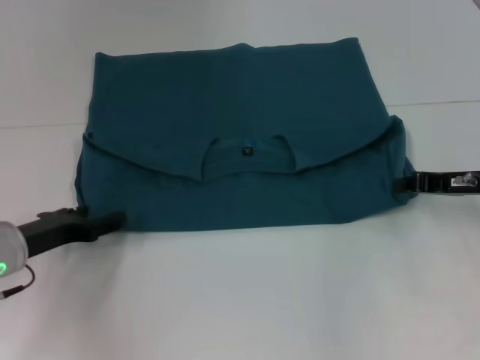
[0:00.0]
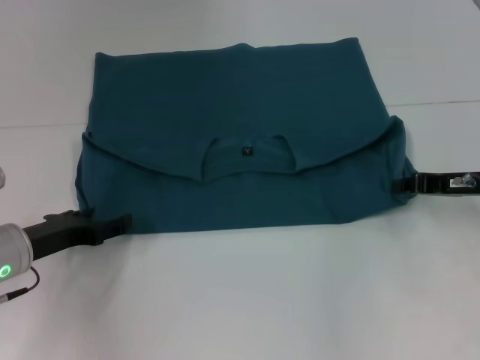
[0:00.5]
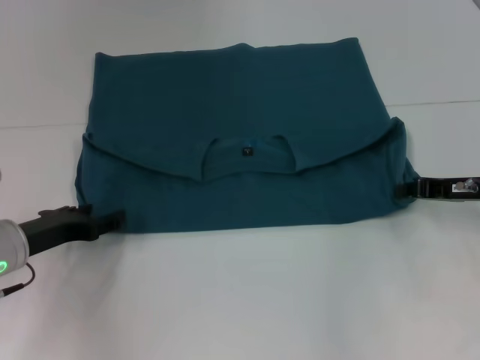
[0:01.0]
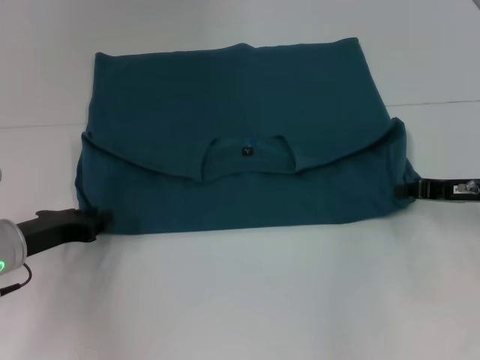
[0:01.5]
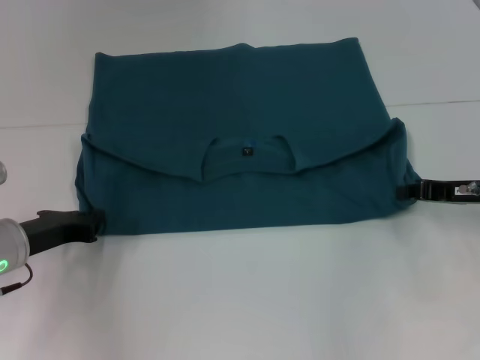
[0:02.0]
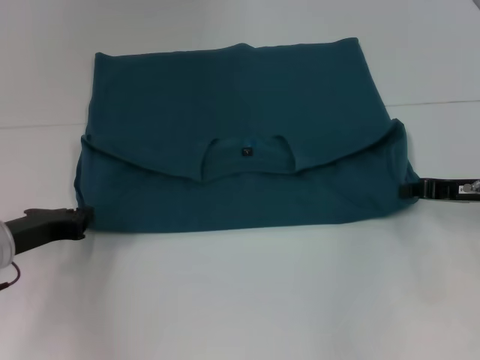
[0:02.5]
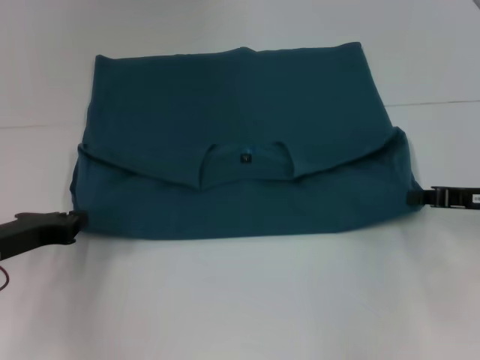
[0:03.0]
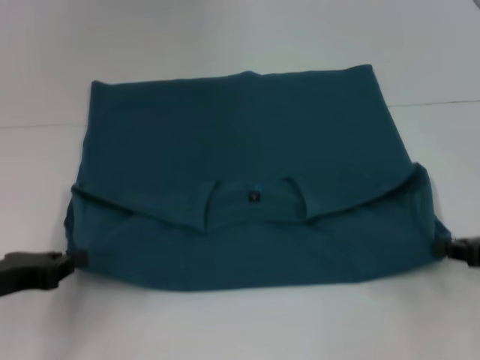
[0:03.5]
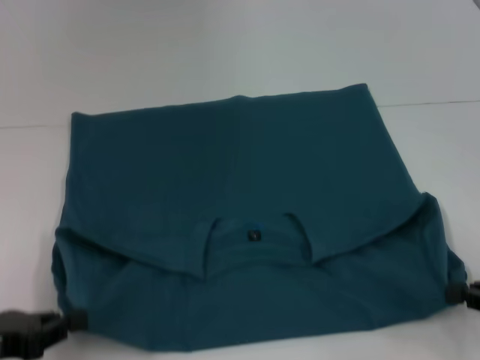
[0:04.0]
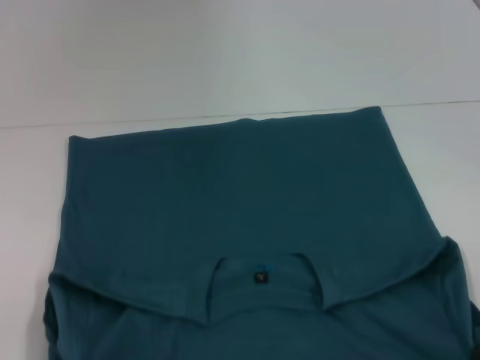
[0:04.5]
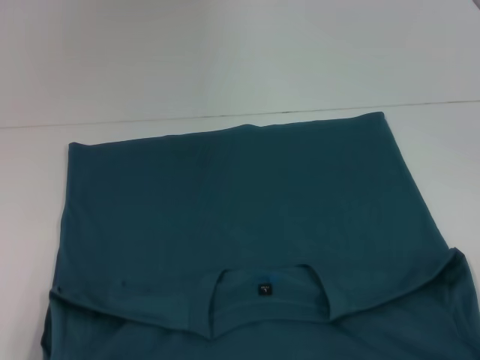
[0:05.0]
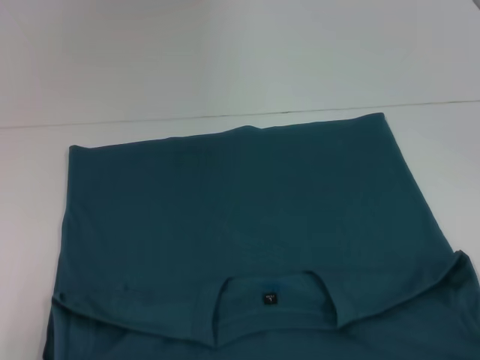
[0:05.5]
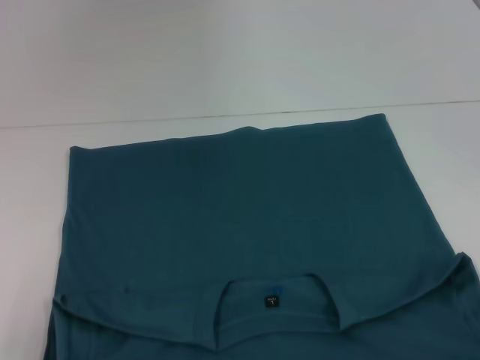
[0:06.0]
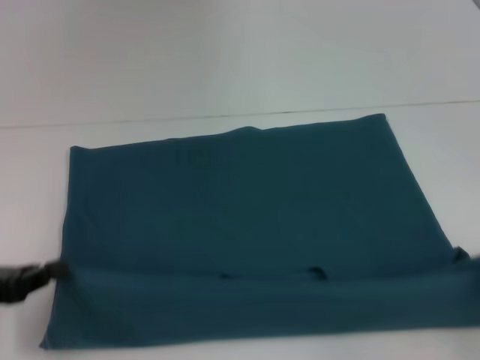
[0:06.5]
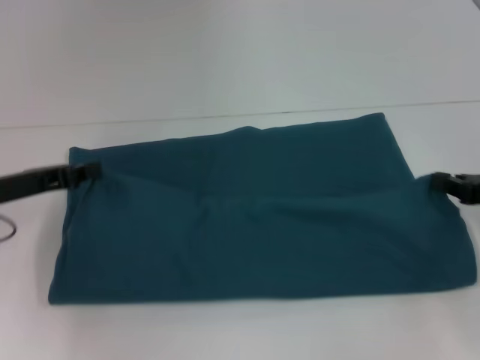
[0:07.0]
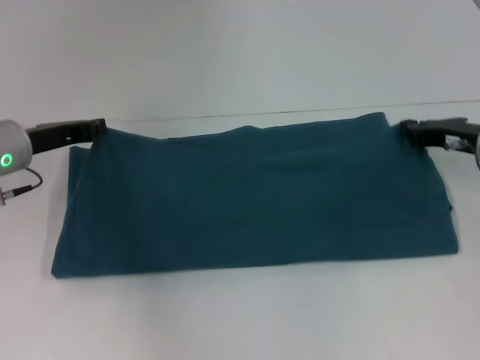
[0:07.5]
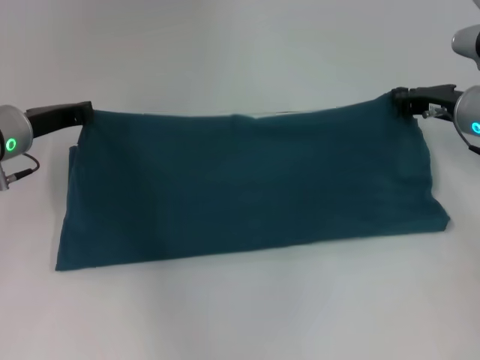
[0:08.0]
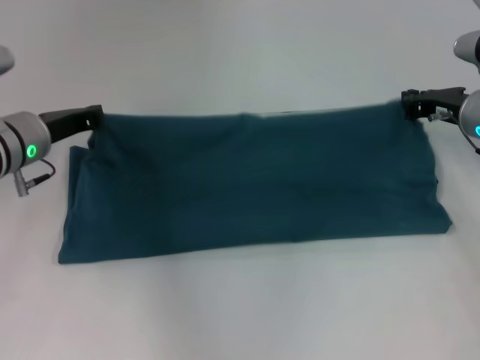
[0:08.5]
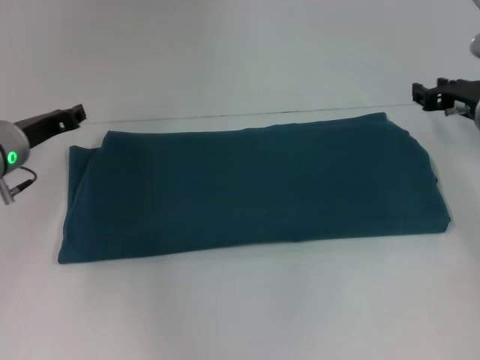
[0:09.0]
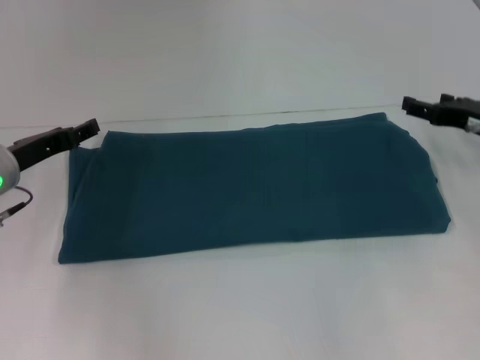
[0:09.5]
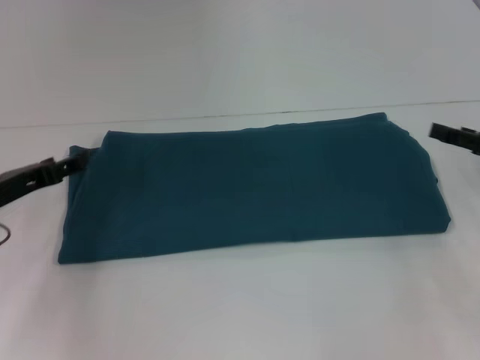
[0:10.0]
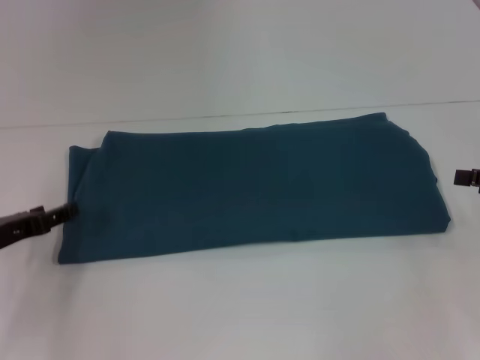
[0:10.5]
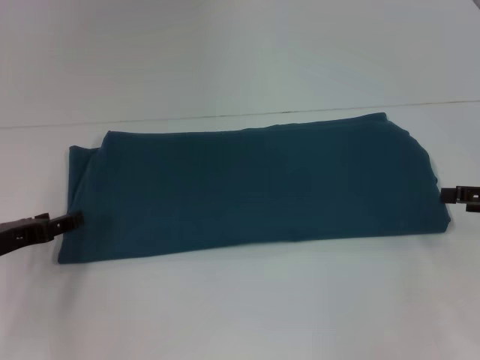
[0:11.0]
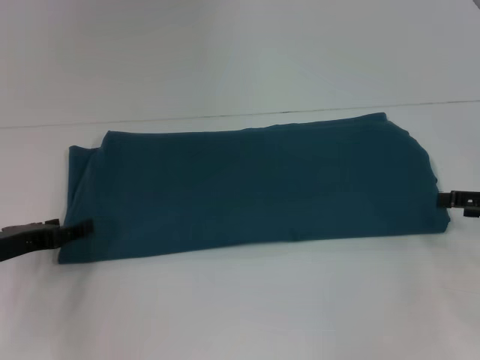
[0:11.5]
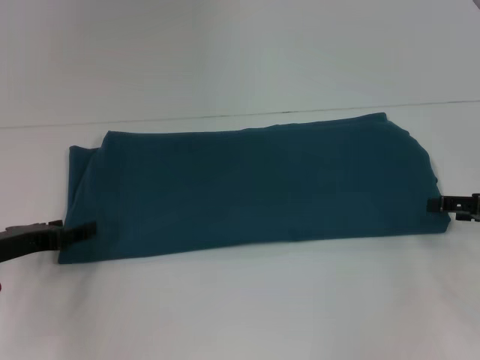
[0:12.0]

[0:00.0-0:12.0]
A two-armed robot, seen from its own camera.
Step, 0.0 to 4.5 s: Pull the clothes with your left hand.
Step, 0.0 to 4.5 s: Pull the clothes with your right hand.
Step, 5.0 to 8.5 s: Fold the clothes to the right.
0.0 to 2.0 s: The left gripper closes up.
2.0 to 4.0 s: The left gripper shifts about 15 cm backward and to the left. Meanwhile the right gripper heads backward and to the right, covering approximately 15 cm.
4.0 to 6.0 s: The right gripper heads backward, covering roughly 10 cm; the left gripper travels backward by some 5 cm.
6.0 to 8.0 s: The left gripper is displaced forward by roughly 25 cm. Meanwhile the right gripper moves forward and to the left, approximately 30 cm.
8.0 to 10.0 s: The left gripper is displaced backward by some 10 cm, and opens; the right gripper moves backward and to the right, approximately 15 cm, and opens its fingers.

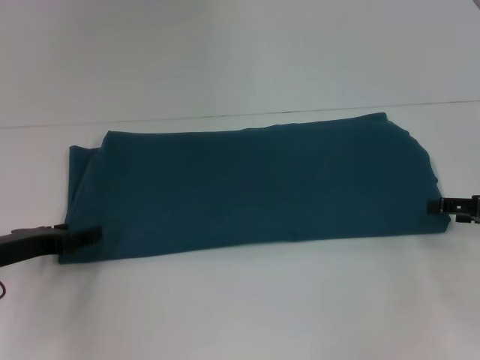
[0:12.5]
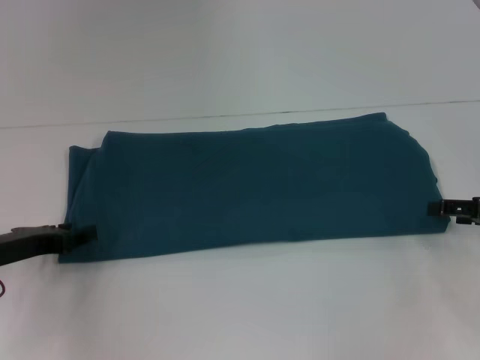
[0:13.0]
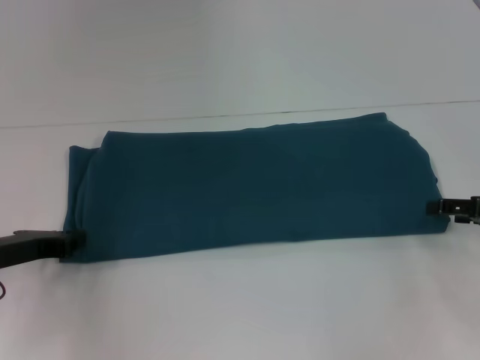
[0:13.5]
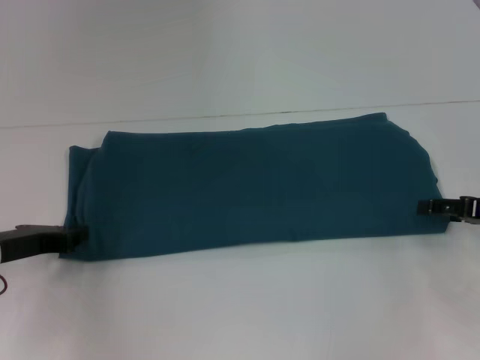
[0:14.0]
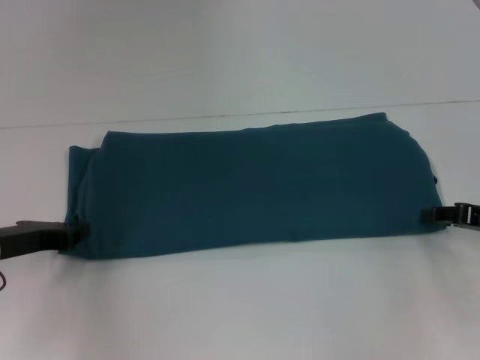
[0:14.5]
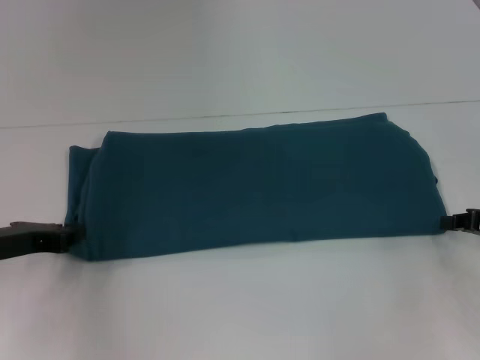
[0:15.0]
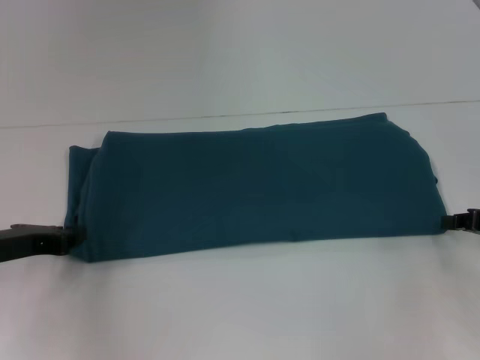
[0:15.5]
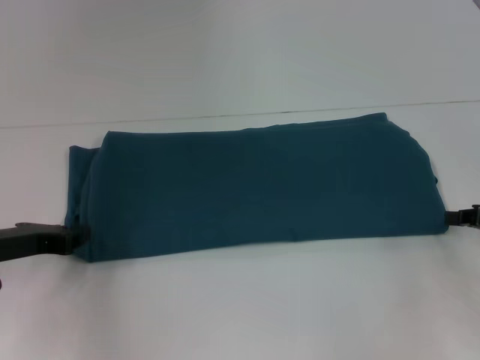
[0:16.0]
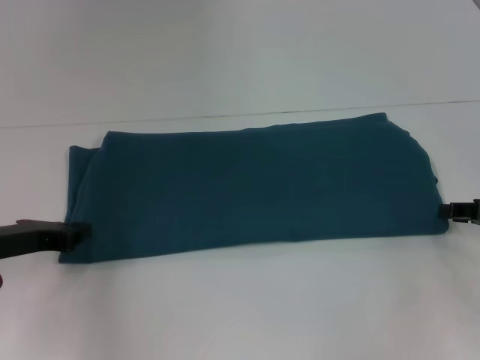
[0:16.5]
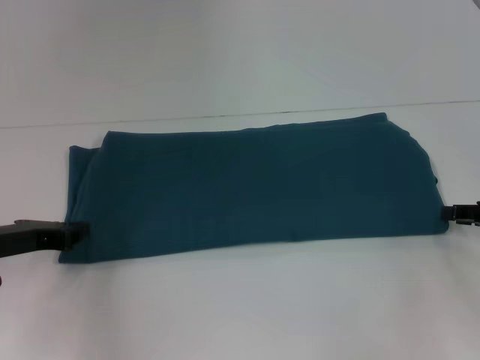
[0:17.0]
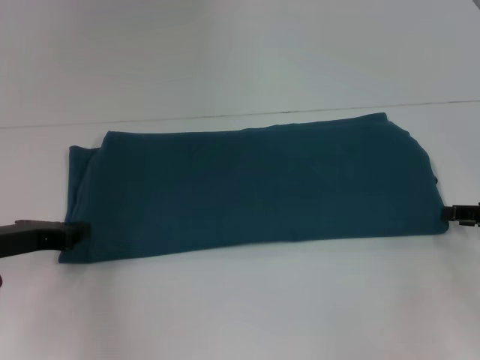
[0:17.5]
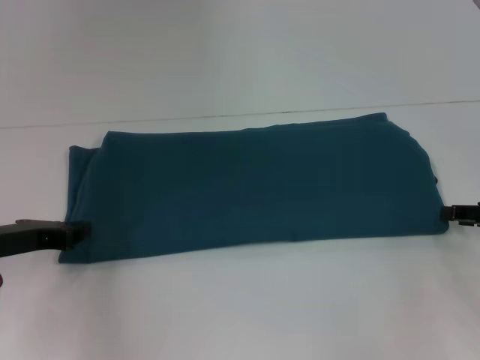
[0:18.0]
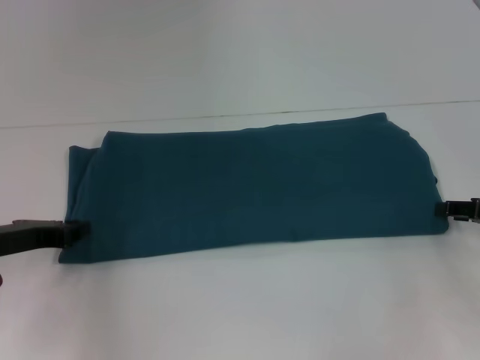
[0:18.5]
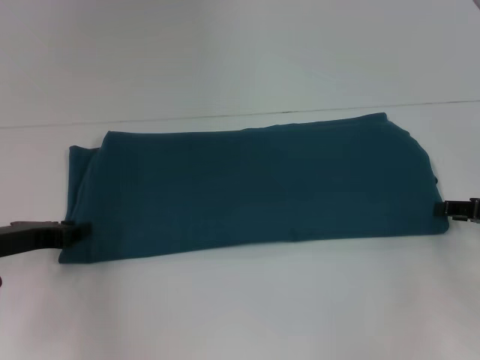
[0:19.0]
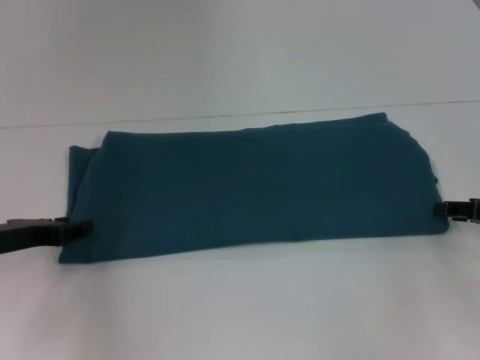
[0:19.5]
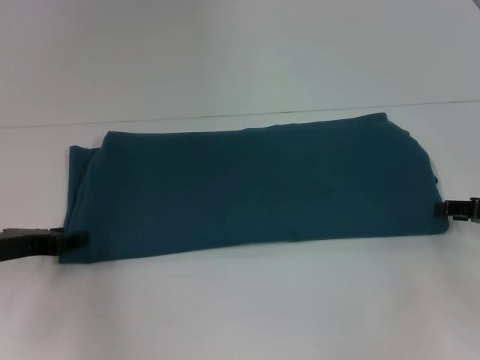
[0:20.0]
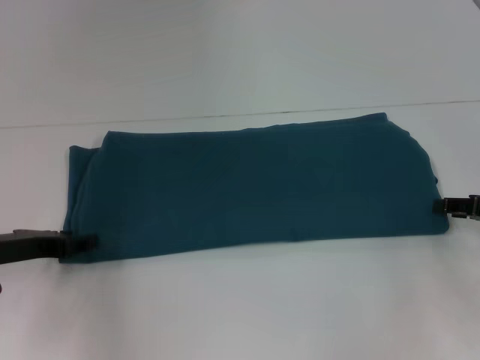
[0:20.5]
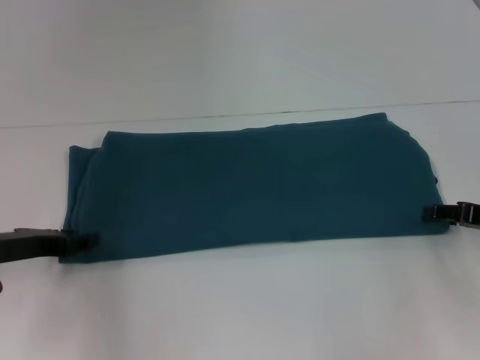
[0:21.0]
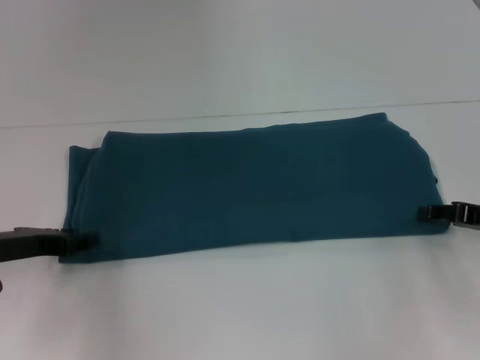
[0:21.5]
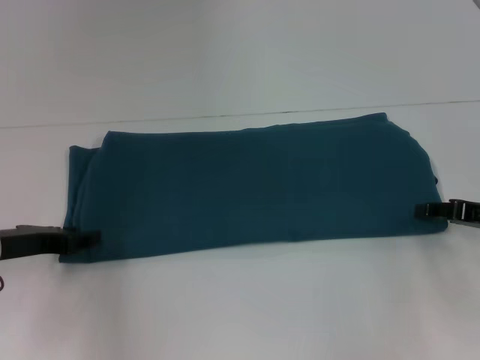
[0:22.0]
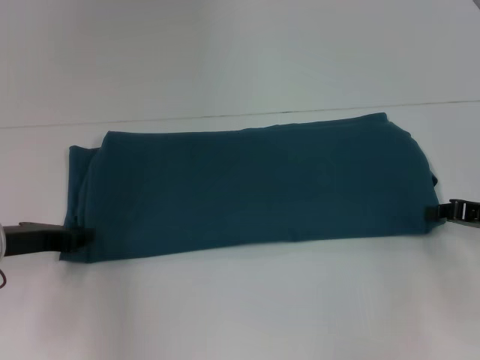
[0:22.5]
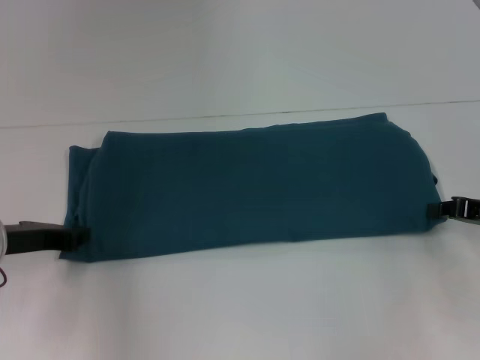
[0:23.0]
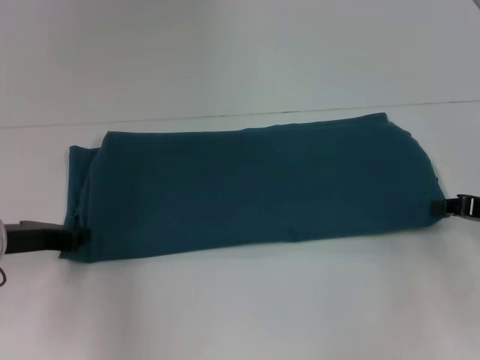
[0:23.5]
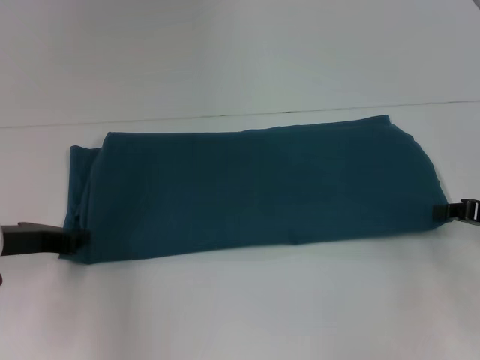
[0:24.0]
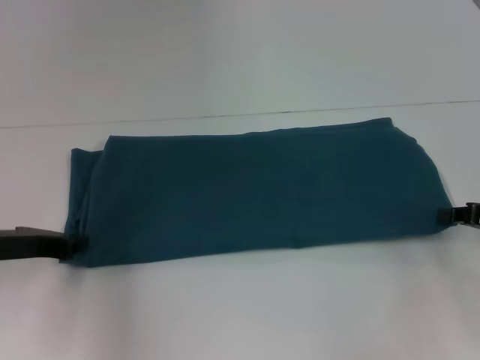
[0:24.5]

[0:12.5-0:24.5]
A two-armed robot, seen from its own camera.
12.5 to 14.5 s: The left gripper closes up.
16.5 to 18.5 s: Neither gripper changes place.
18.5 to 20.5 s: The left gripper opens up.
20.5 to 22.5 s: There are only small adjustments of the grippers.
22.5 to 24.5 s: The left gripper closes up.

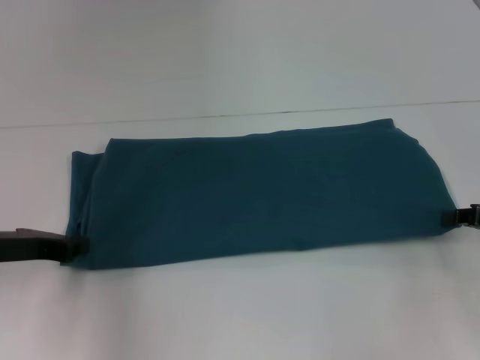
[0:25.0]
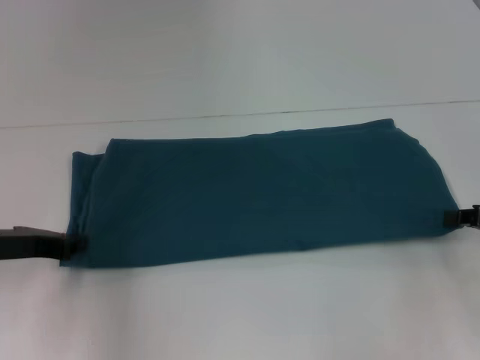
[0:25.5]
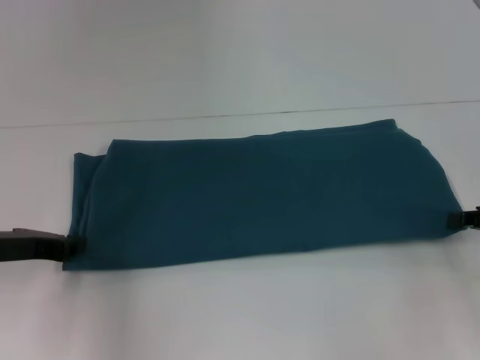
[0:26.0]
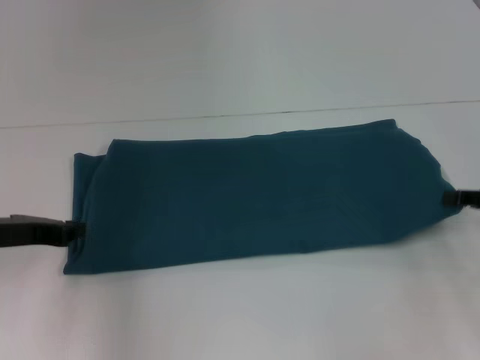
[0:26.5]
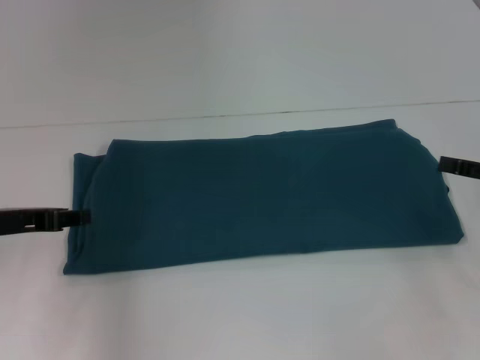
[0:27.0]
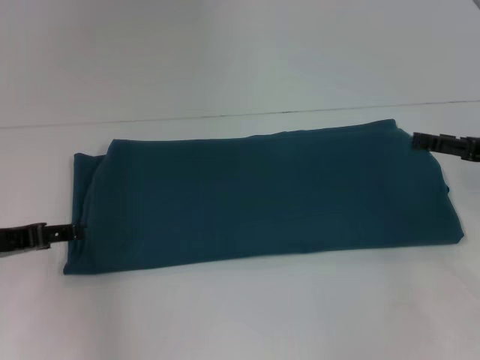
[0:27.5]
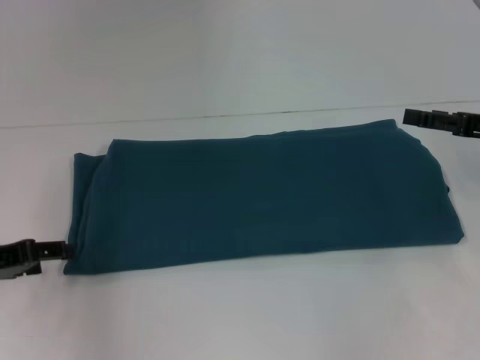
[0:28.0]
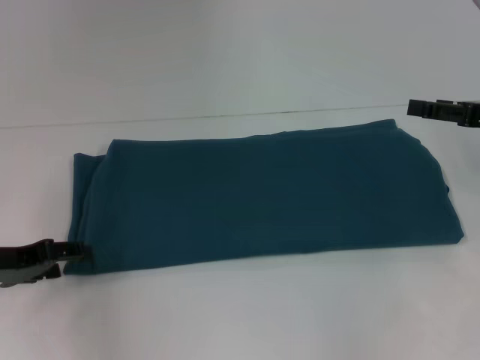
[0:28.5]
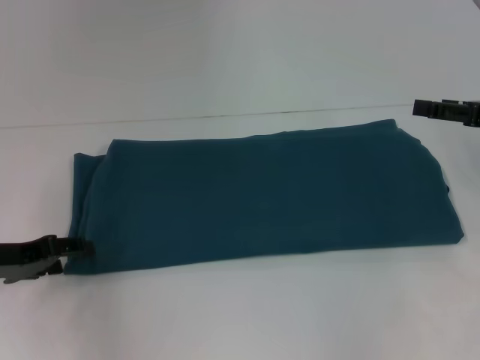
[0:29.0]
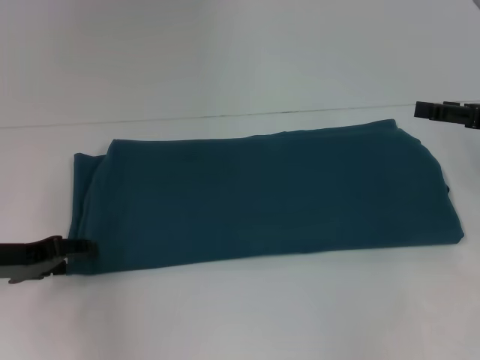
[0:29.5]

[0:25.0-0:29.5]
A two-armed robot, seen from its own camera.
25.0 to 27.0 s: The right gripper opens its fingers.
27.0 to 29.5 s: The left gripper opens its fingers. The right gripper goes approximately 5 cm forward, and opens.
